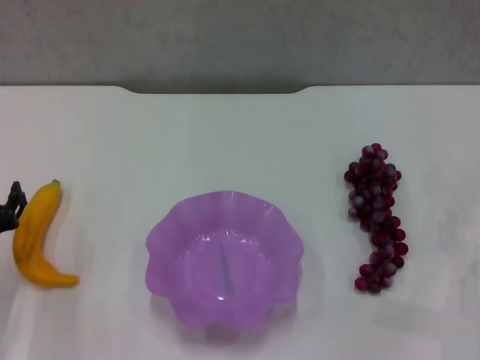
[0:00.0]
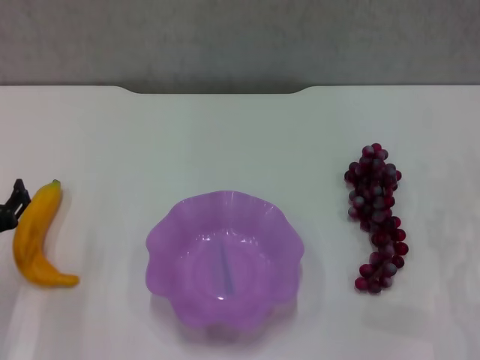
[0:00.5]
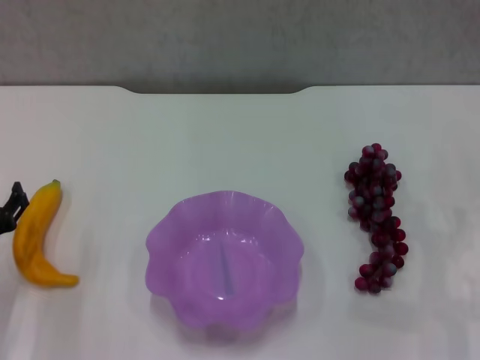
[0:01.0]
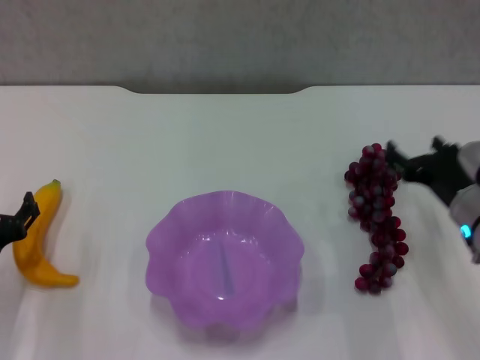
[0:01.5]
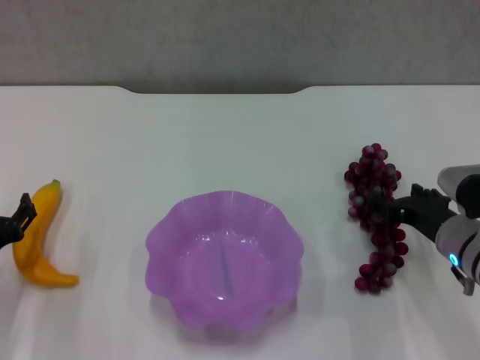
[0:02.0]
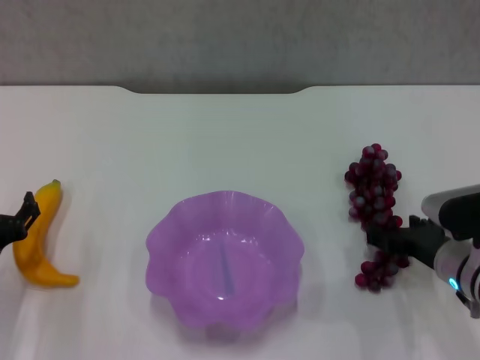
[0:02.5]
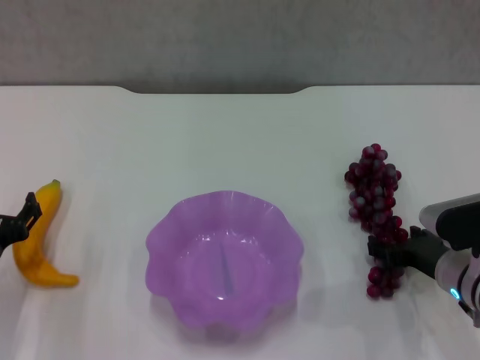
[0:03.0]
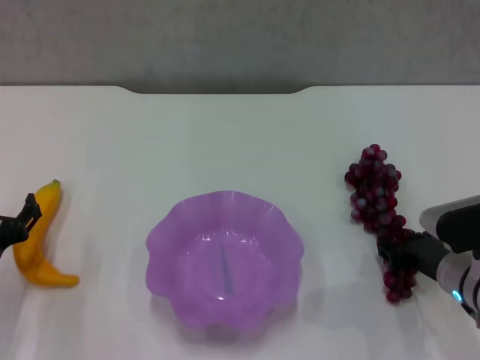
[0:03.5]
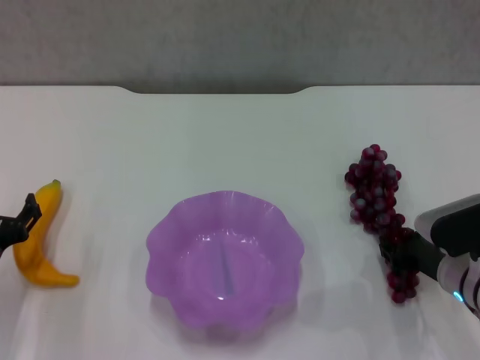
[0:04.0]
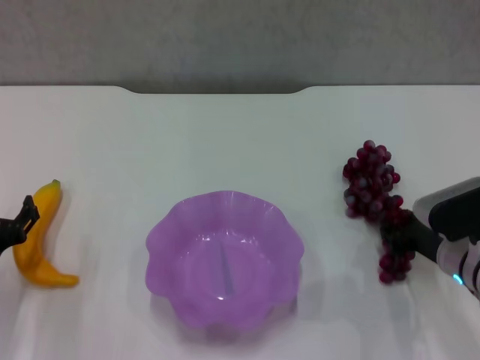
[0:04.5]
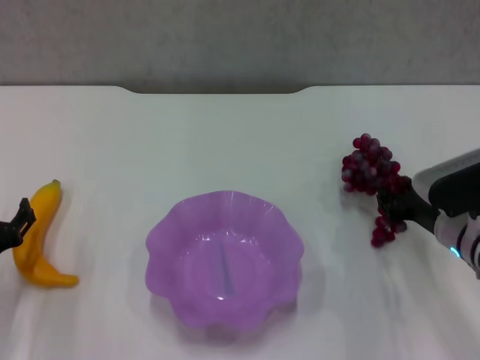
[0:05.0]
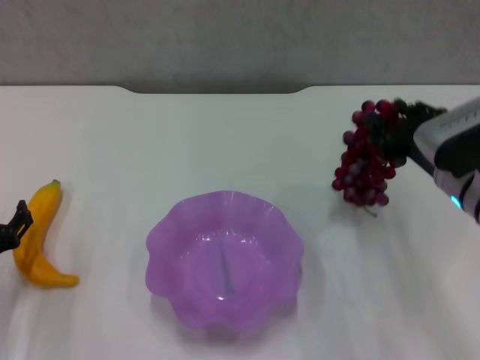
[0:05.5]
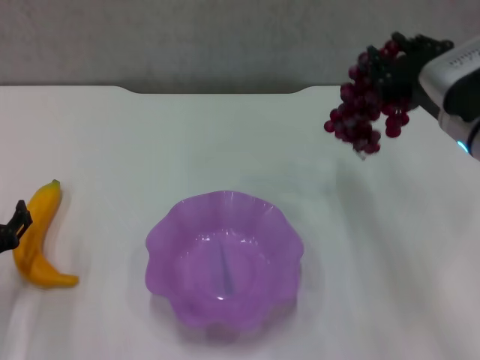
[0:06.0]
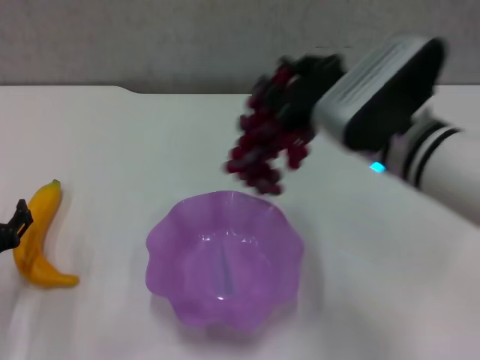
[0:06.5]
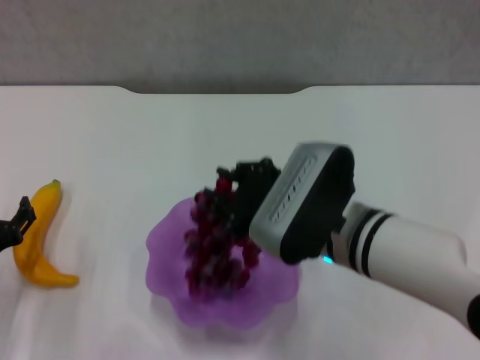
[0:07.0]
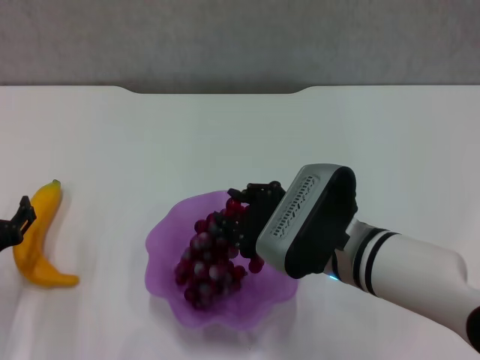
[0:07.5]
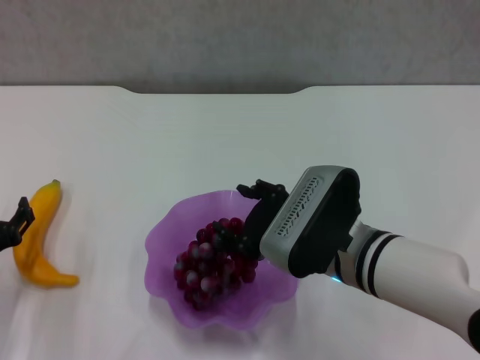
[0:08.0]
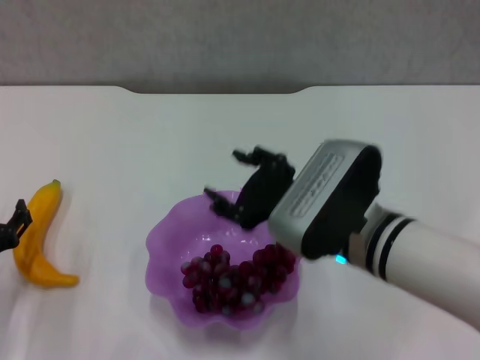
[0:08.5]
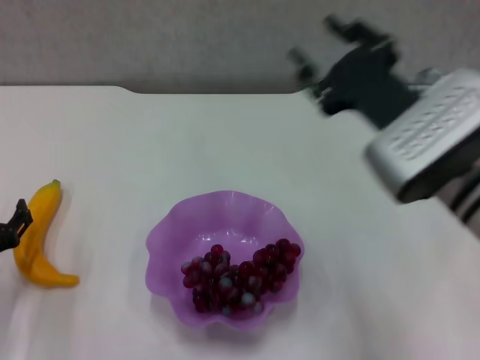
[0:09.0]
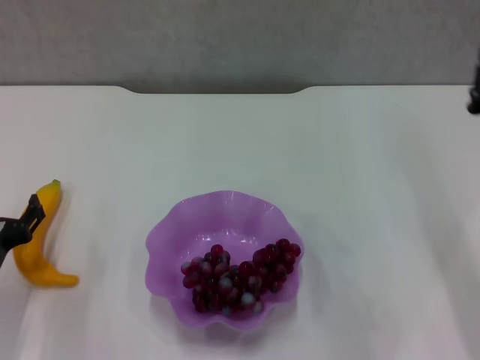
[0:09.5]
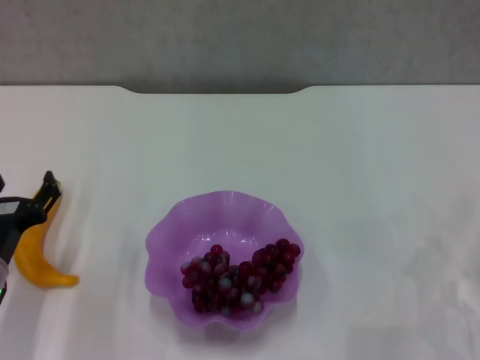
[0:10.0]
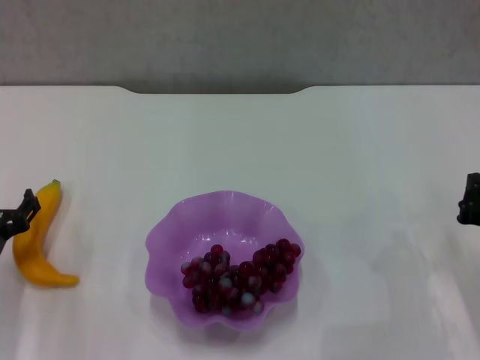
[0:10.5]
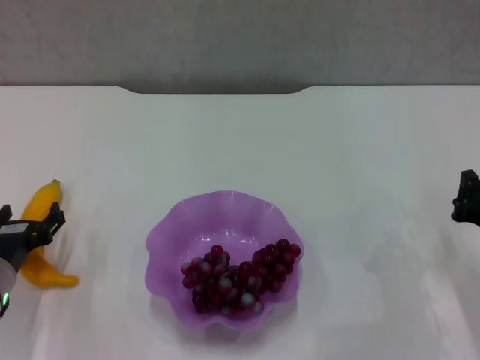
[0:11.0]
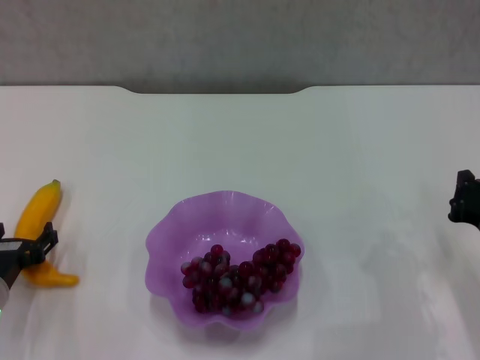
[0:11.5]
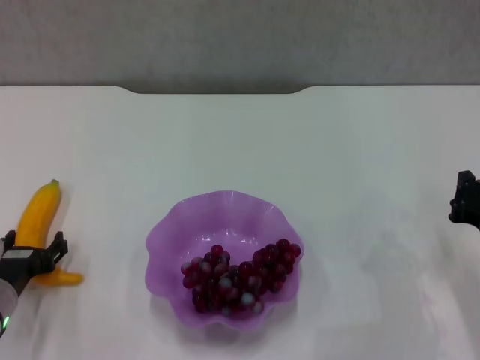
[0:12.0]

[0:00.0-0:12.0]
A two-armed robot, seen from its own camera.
Step, 0:00.0 to 0:04.0: Grasp the grape with right gripper.
Step, 0:04.5 to 0:08.5: Place the grape in the purple plate with right gripper.
0:00.0 to 0:02.0: The left gripper opens its fingers, while the right gripper shifts roughly 10 cm to the left, and opens its fingers.
0:02.0 to 0:04.0: The right gripper closes its fingers.
0:04.0 to 0:06.0: The right gripper travels upward by some 15 cm.
0:06.0 to 0:08.0: The right gripper shifts about 15 cm to the left, downward and backward.
0:08.0 to 0:10.0: The right gripper shifts approximately 20 cm to the right, and closes its fingers.

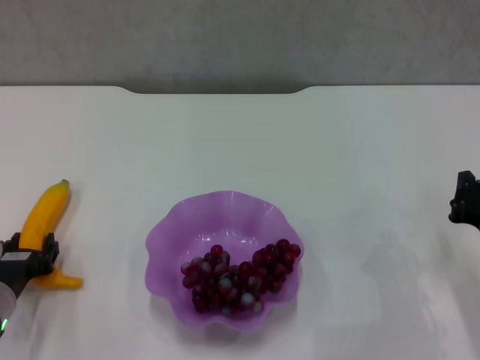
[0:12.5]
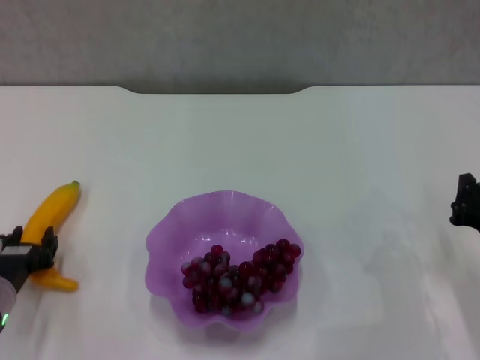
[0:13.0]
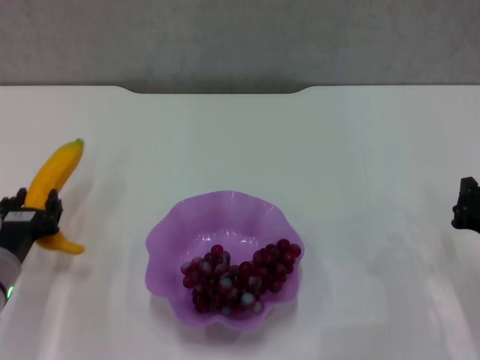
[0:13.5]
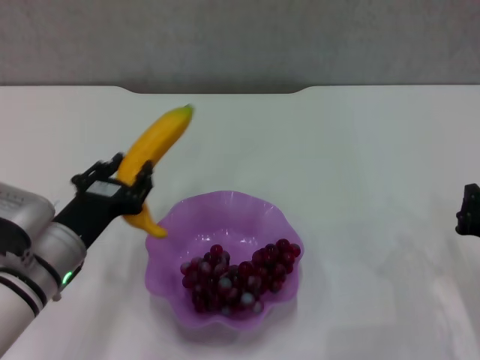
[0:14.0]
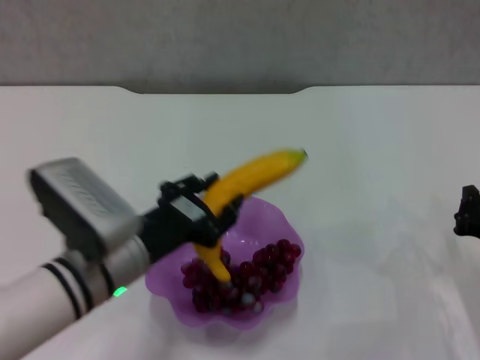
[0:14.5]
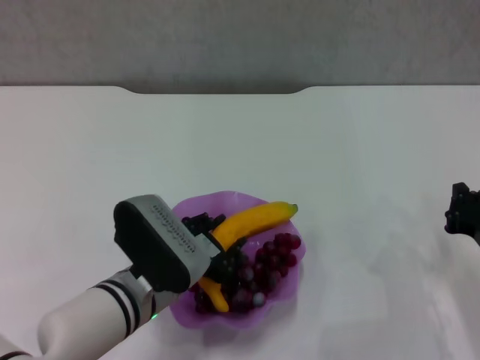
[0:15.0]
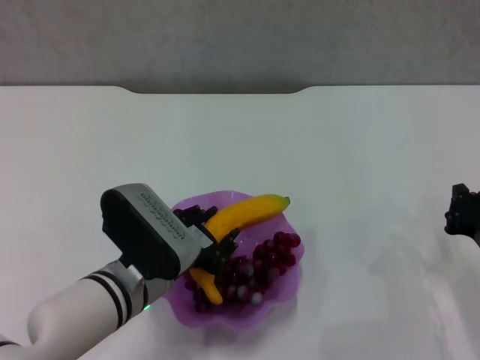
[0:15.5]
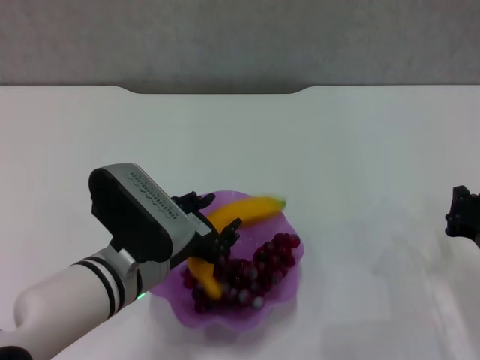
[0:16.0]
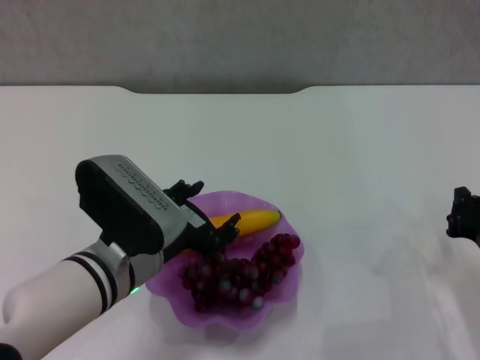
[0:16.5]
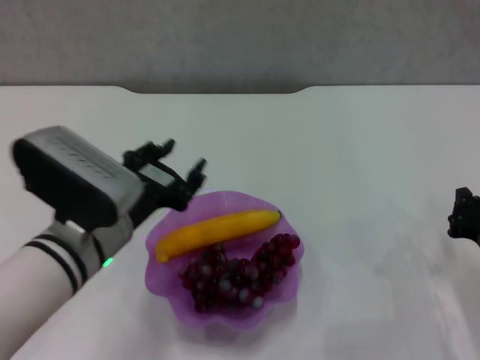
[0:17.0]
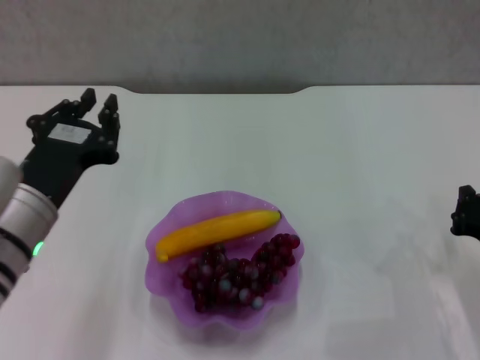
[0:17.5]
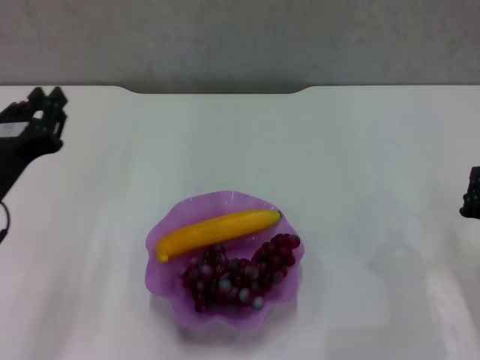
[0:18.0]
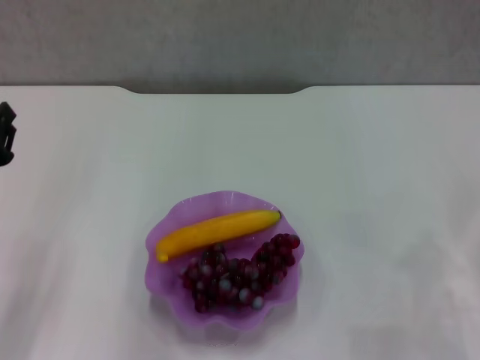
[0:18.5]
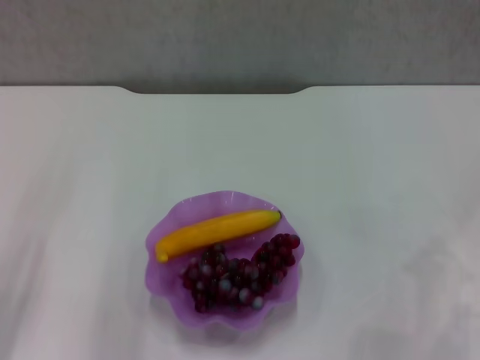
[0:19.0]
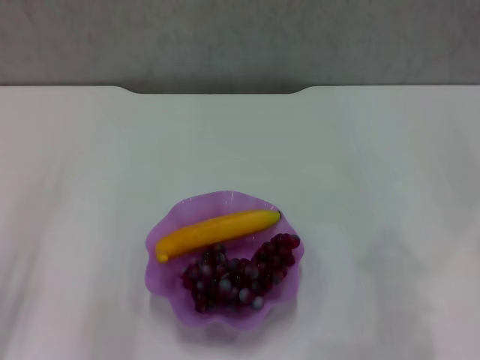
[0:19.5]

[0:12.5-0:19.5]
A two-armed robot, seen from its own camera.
Step, 0:13.0 to 0:16.5: Place the banana in the purple plate with left gripper.
0:12.5 to 0:14.5: The left gripper is displaced to the right and upward by approximately 15 cm.
0:14.5 to 0:16.0: The grippers move only a little.
0:16.0 to 0:17.5: The left gripper shifts about 10 cm to the left and upward, and closes its fingers.
0:17.5 to 0:19.5: The left gripper moves to the left, approximately 10 cm; the right gripper goes approximately 10 cm upward.

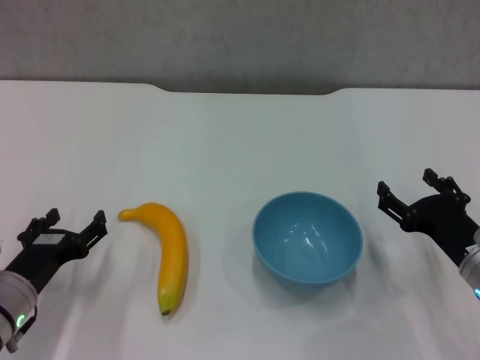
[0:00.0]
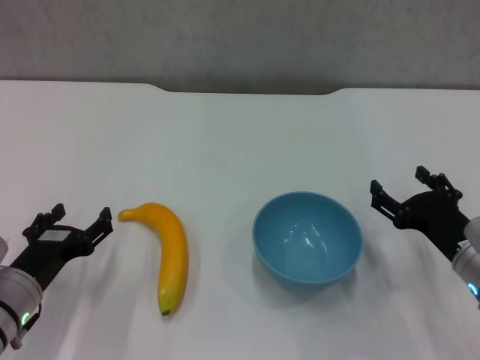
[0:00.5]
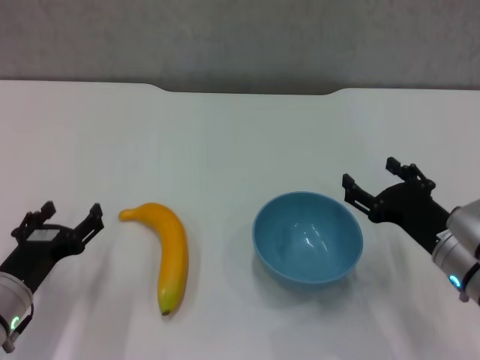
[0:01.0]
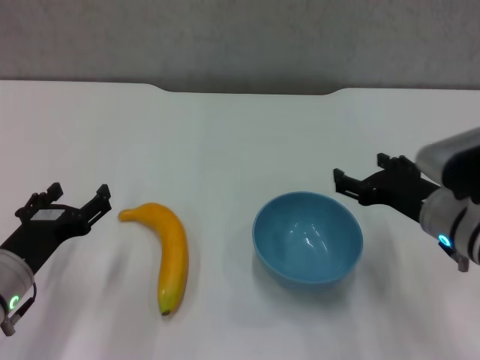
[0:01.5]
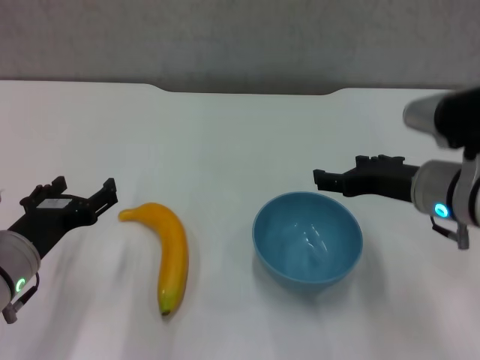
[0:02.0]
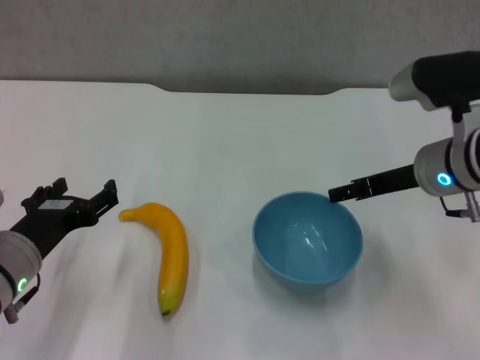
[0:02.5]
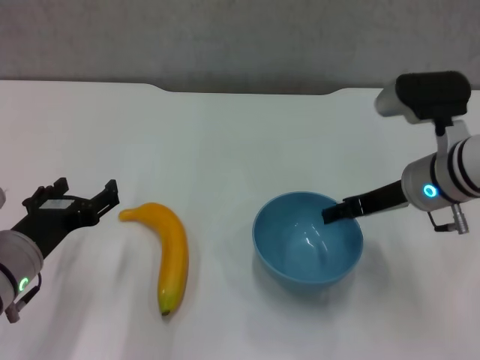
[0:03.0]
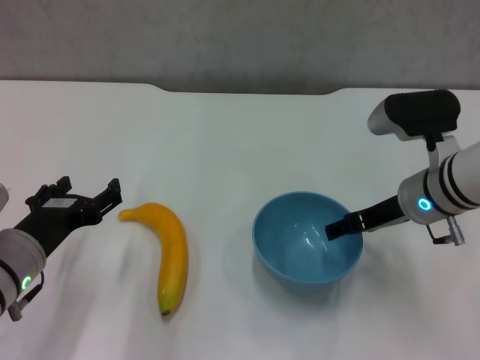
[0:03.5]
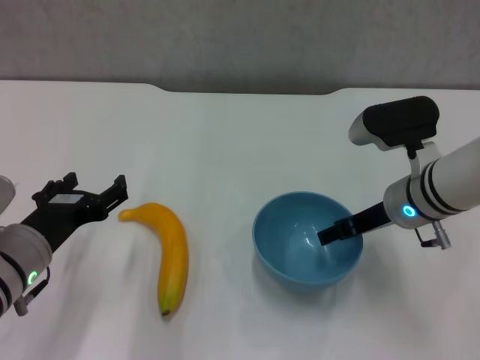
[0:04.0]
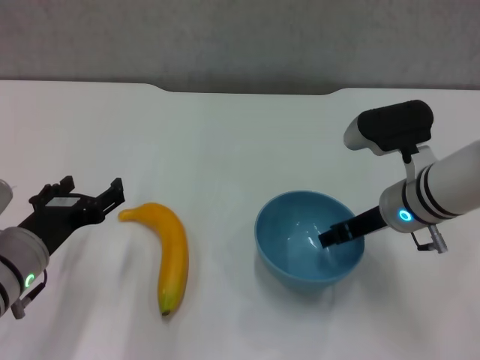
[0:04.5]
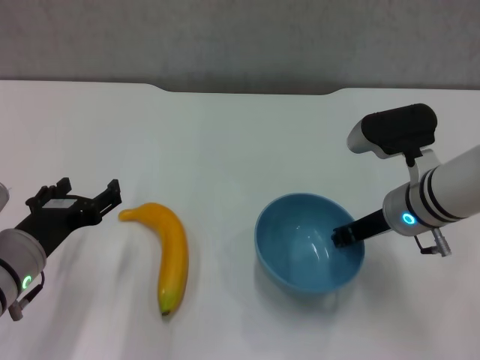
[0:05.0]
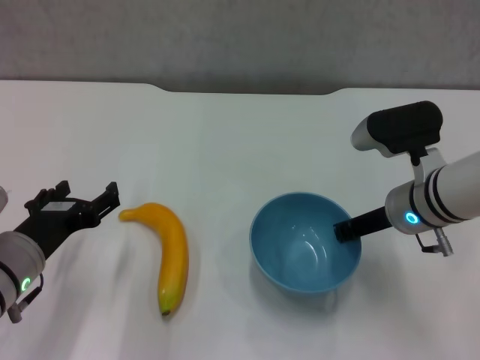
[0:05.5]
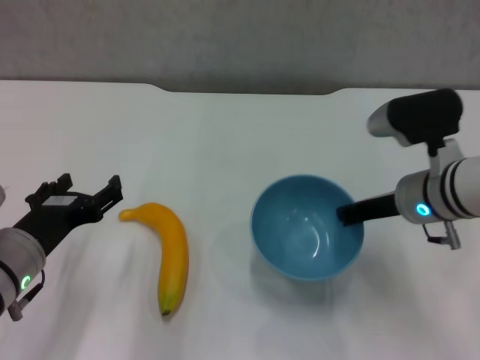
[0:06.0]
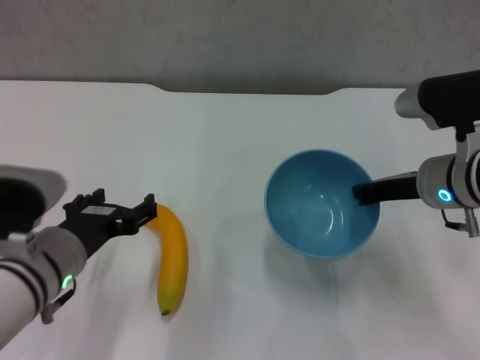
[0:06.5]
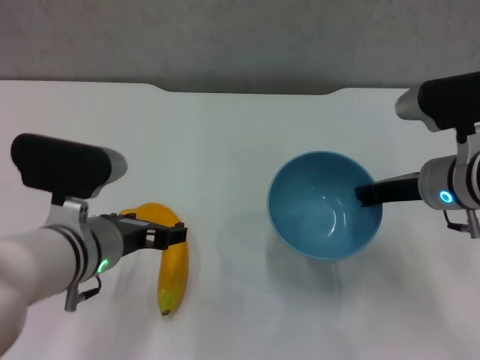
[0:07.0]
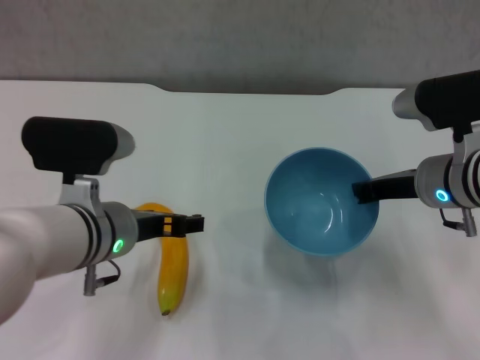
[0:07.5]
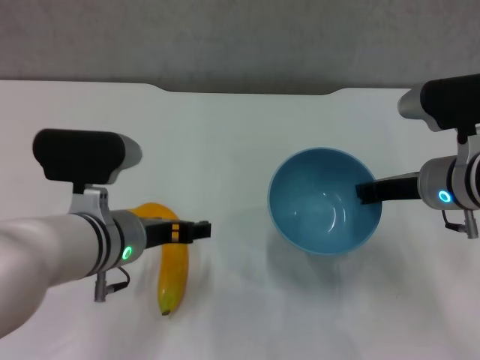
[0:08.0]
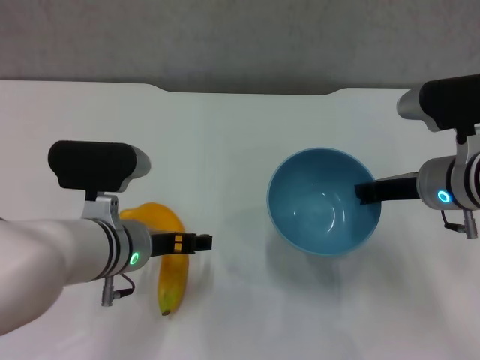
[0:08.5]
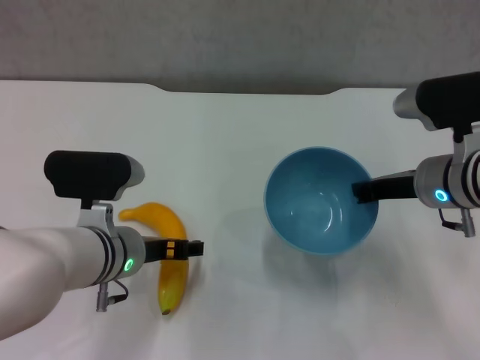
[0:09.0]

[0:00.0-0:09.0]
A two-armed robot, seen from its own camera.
Step, 0:00.0 to 0:05.0: Grasp the blue bowl with right gripper.
Step, 0:05.5 to 0:06.5: Lift the blue bowl with right gripper.
0:00.0 to 0:02.0: The right gripper shifts some 15 cm upward, to the left and forward; the left gripper heads upward, covering approximately 5 cm.
0:02.0 to 0:04.5: The right gripper changes place by approximately 5 cm.
0:04.5 to 0:07.0: The left gripper heads to the right, covering roughly 5 cm. Meanwhile the right gripper closes.
0:07.0 to 0:09.0: The grippers stay close to where they were, moving slightly.
